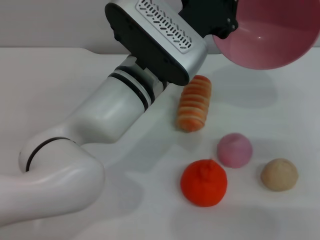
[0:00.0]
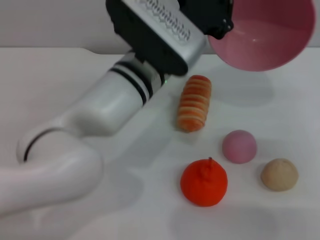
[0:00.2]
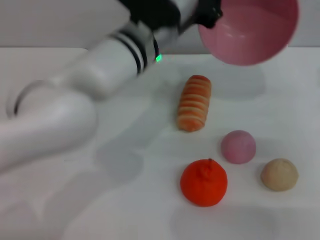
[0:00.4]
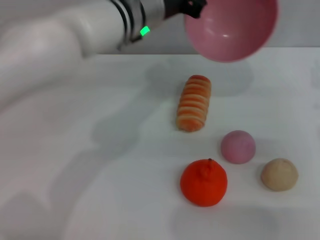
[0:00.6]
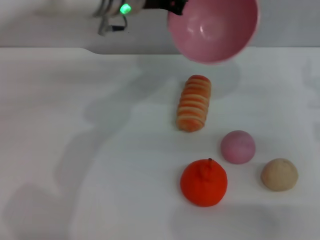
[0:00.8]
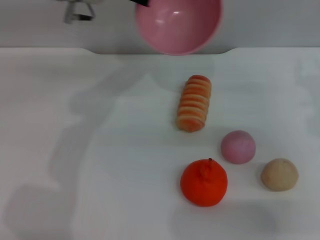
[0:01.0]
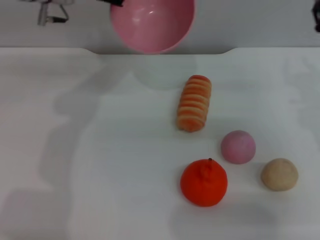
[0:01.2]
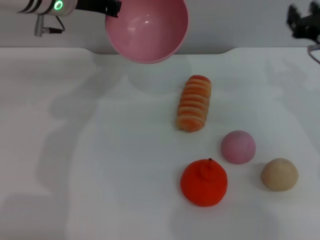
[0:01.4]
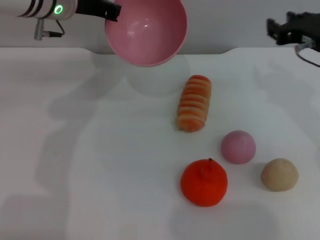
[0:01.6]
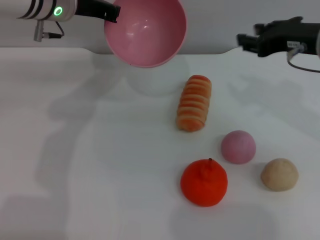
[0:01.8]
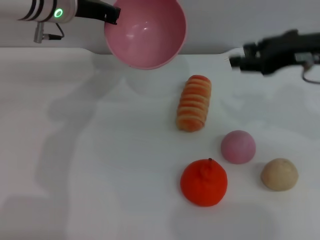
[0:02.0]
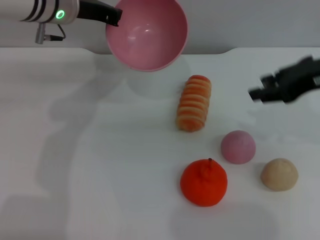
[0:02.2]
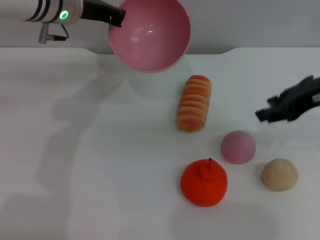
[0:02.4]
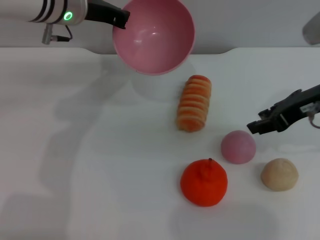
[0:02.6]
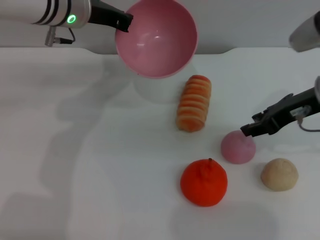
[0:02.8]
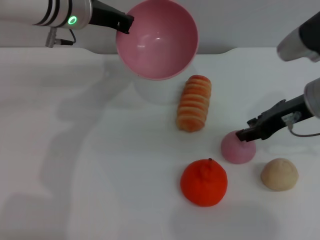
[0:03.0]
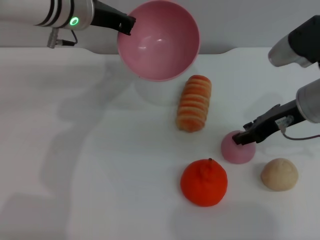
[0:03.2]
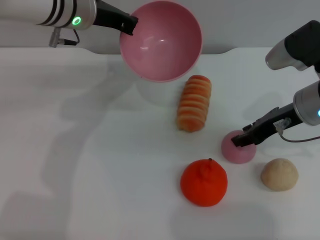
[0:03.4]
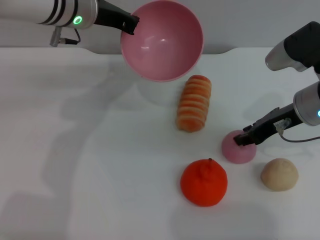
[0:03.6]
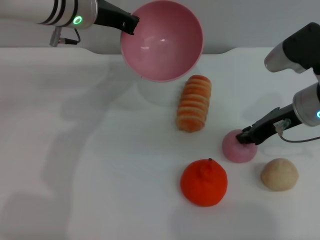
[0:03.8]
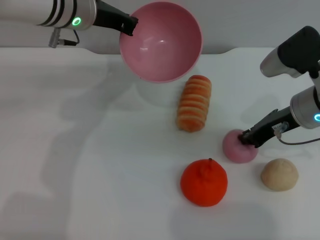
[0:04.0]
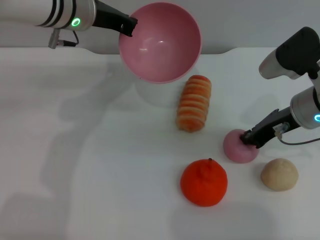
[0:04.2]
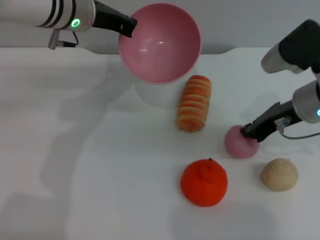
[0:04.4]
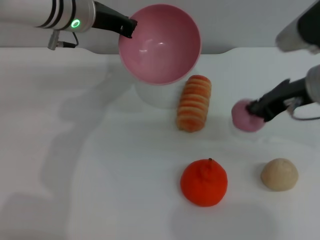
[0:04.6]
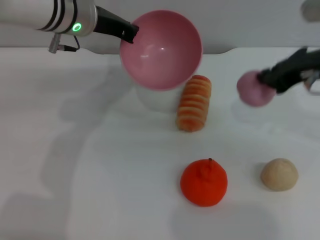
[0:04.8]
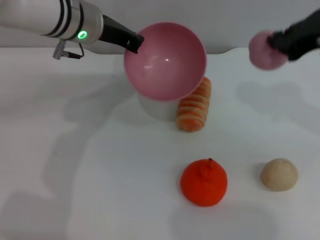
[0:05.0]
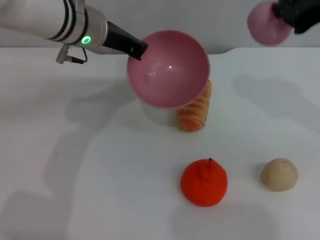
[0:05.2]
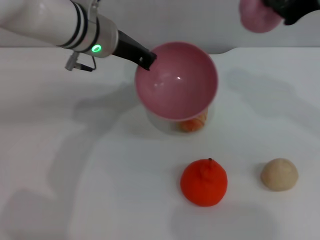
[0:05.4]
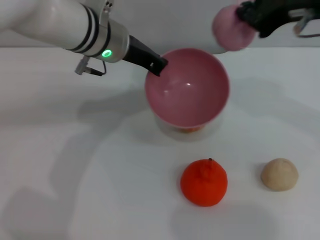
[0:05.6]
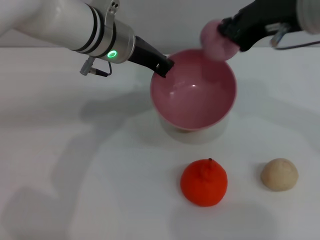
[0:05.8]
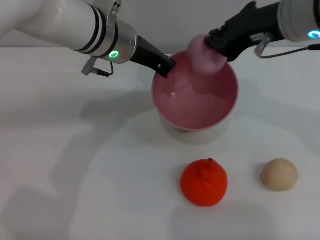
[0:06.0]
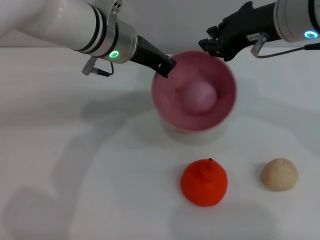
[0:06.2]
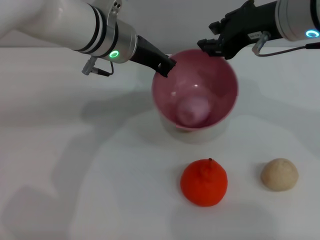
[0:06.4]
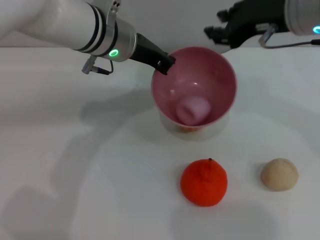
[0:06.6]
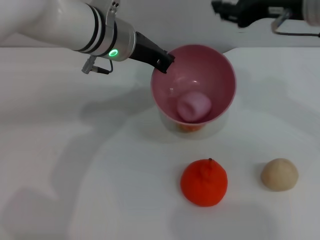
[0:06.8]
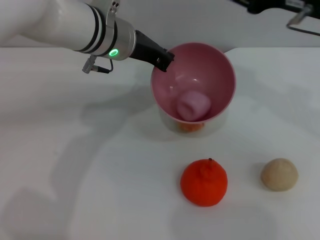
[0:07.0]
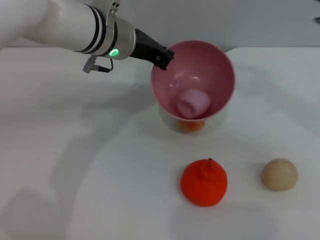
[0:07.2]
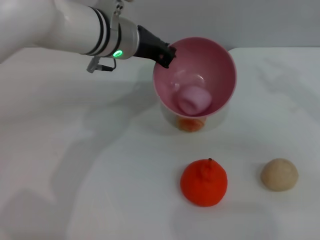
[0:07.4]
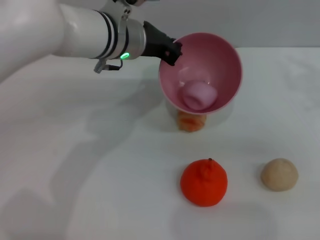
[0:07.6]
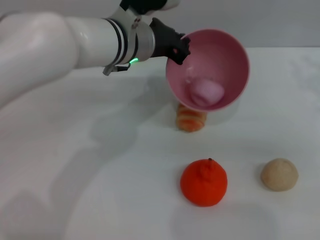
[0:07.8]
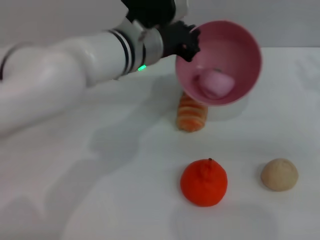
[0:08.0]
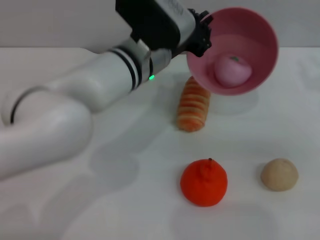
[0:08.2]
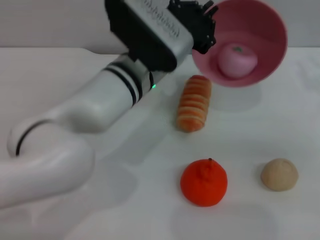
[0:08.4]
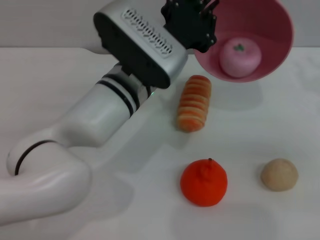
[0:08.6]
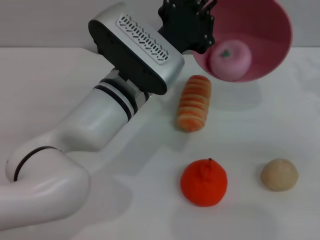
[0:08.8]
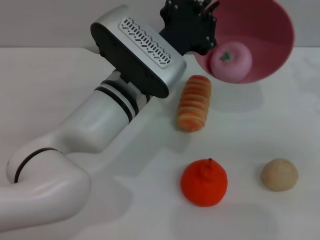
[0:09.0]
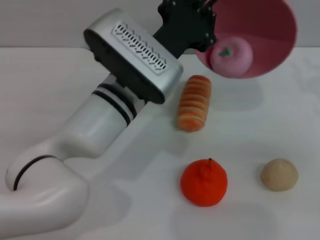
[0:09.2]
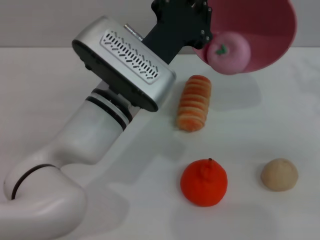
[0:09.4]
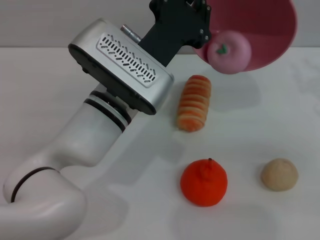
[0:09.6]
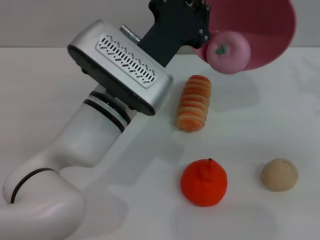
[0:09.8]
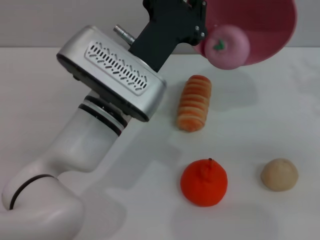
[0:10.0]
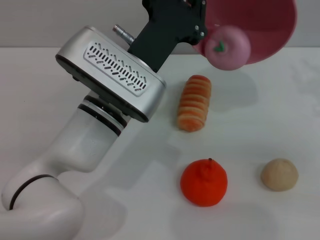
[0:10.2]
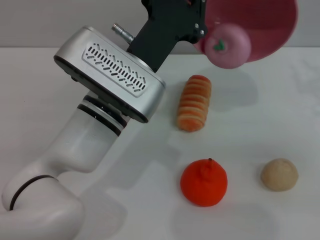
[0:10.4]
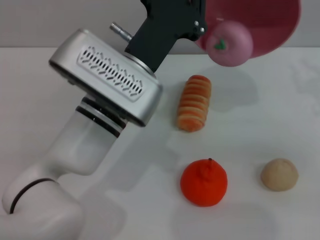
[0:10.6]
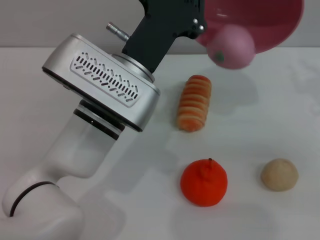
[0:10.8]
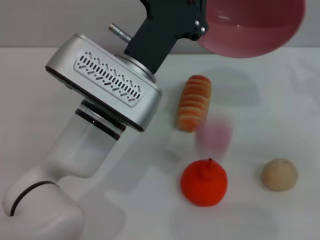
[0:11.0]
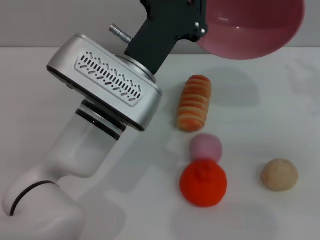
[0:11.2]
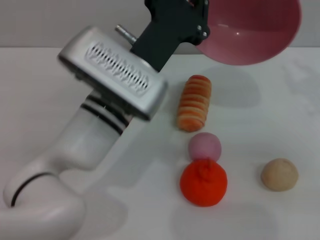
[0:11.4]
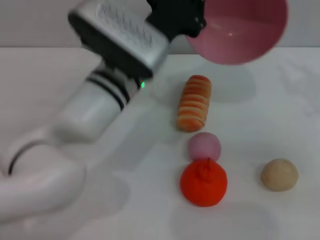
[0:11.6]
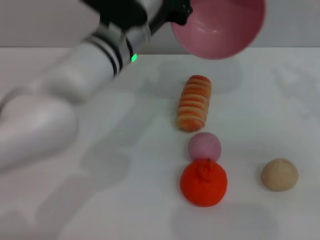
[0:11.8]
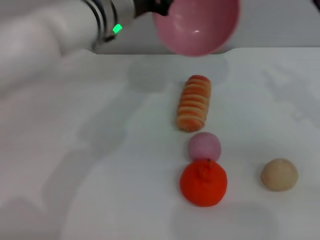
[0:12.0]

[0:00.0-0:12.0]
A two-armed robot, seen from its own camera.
Task of the whole recording: put the peach into the pink bowl and pour it out repeatedly.
Step, 0:00.2 to 0:04.8: Pick up the peach with the right gripper.
Step, 0:05.0 to 0:06.6: Place the peach into the bowl.
Step, 0:06.8 to 0:11.2: Pour the peach out of bowl.
0:00.0 to 0:01.6: The left gripper goes roughly 20 cm to the left, forward and upward. The right gripper heads to the left and forward, covering about 10 cm.
0:03.0 to 0:04.4: The right gripper closes its fingers.
0:04.4 to 0:06.0: The left gripper moves to the right, roughly 5 cm; the right gripper travels upward and to the left by about 15 cm.
0:06.0 to 0:07.6: The right gripper travels to the right and downward by about 20 cm, and opens up.
0:07.6 to 0:09.0: The left gripper goes about 10 cm backward.
0:10.4 to 0:12.0: The left gripper is displaced forward by some 10 cm.

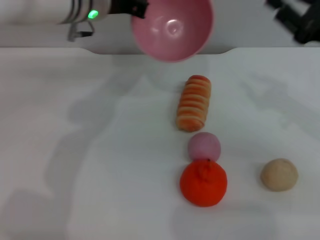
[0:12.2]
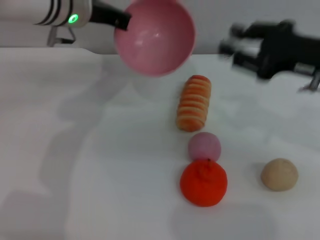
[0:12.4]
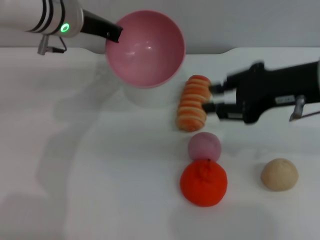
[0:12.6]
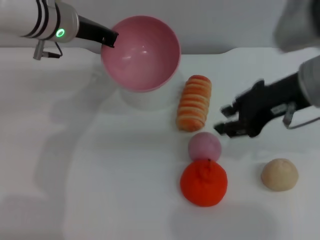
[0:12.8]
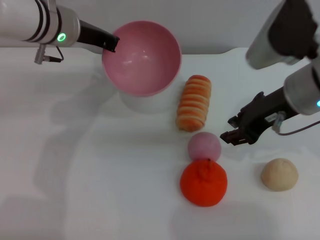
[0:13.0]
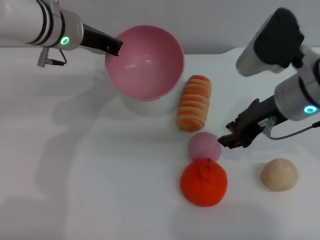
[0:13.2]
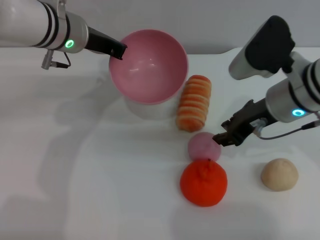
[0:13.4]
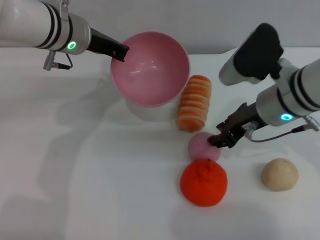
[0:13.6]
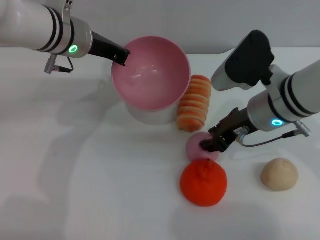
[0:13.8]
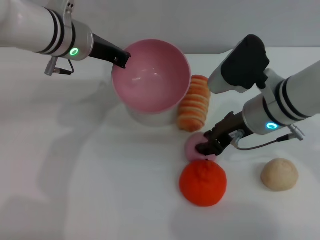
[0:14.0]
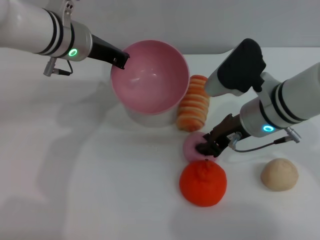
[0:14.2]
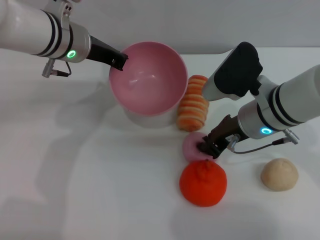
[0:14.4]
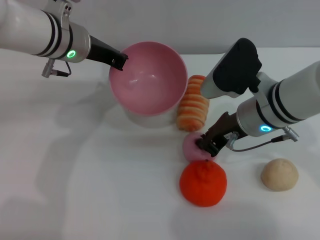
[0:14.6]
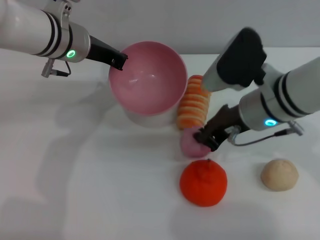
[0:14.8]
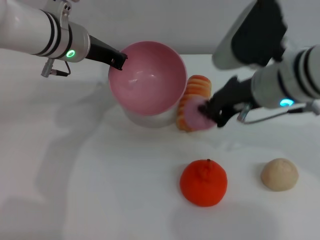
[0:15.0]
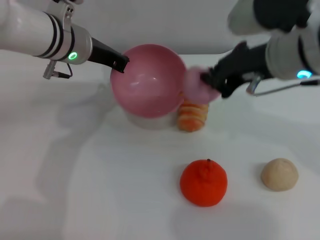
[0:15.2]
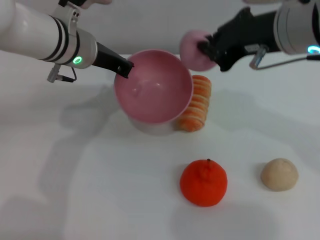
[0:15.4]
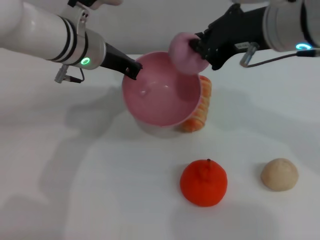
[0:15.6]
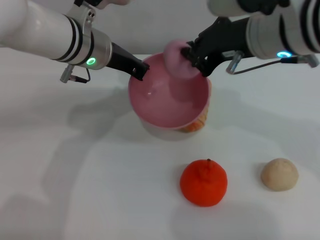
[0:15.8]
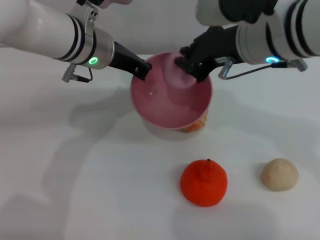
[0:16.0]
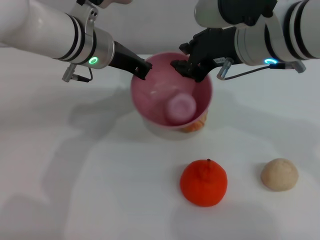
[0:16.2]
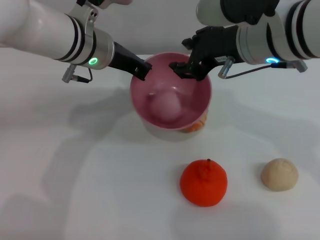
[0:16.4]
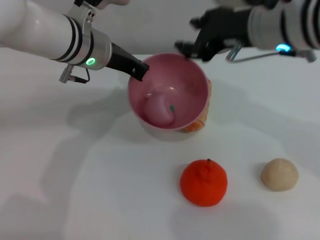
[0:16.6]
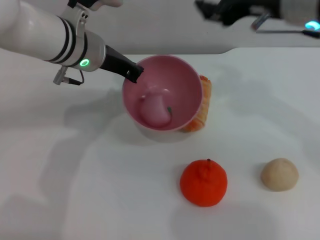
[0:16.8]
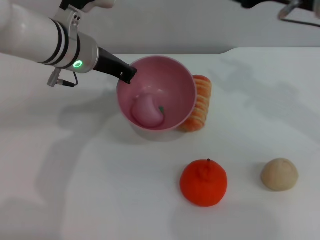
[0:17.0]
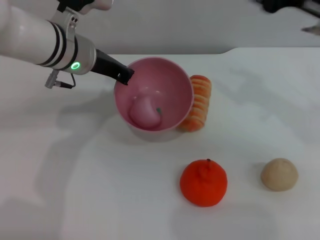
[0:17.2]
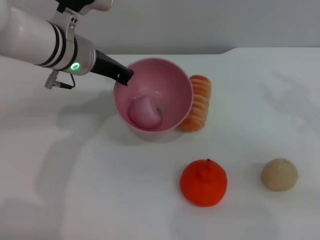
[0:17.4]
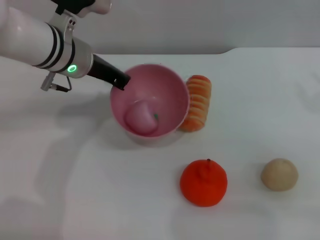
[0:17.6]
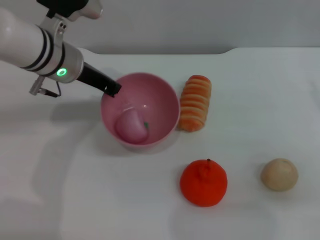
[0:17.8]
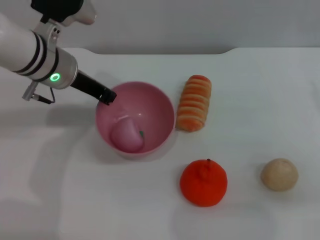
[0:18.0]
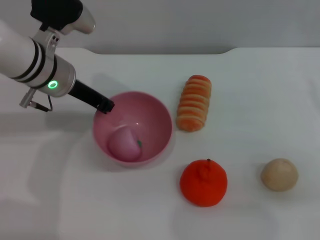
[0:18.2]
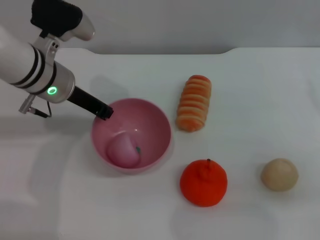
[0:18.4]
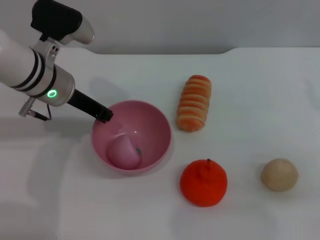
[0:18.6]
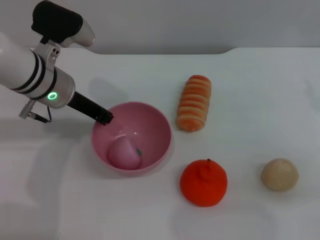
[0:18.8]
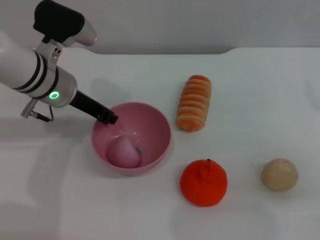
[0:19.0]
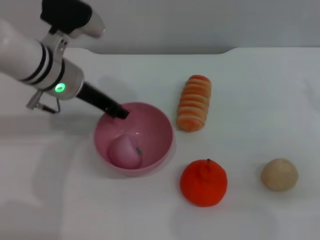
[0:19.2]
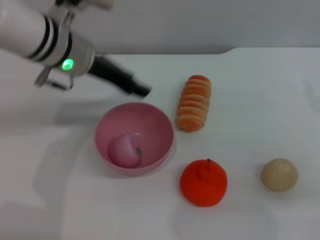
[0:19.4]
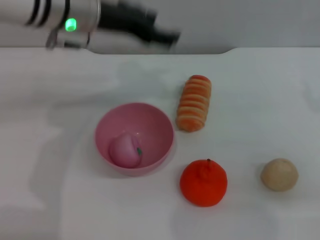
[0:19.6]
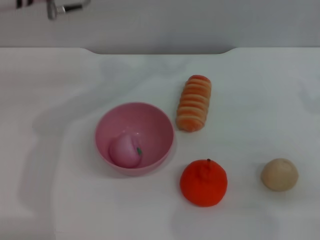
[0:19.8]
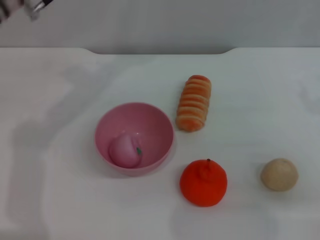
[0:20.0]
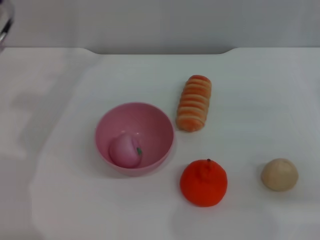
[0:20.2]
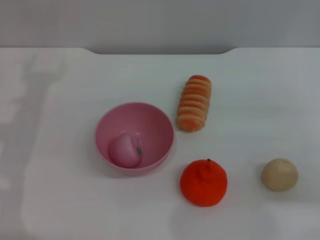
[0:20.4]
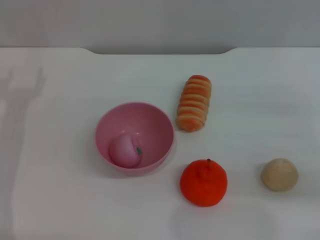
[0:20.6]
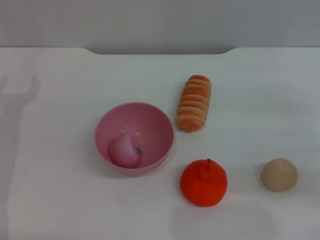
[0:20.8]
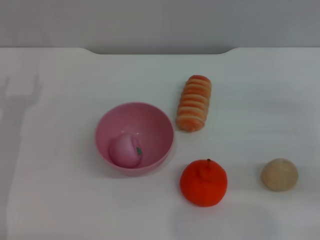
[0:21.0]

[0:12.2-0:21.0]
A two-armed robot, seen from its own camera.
Task of the whole recording: put the peach into the pink bowl and pour it out repeatedly.
Step, 0:12.2 to 0:14.8: Pick up the peach with the right gripper.
Step, 0:15.0 to 0:16.2: Place the peach into the bowl.
Step, 0:16.6 to 0:19.4: Place the bowl on the table.
0:12.2 to 0:13.6: The right gripper moves to the left, about 10 cm.
0:13.6 to 0:15.2: The right gripper heads upward, covering roughly 10 cm, and closes.
0:15.2 to 0:16.6: The right gripper opens its fingers.
0:16.6 to 0:18.0: The right gripper shifts some 25 cm to the right and downward. Meanwhile the left gripper moves some 5 cm.
0:18.0 to 0:19.6: The left gripper is displaced upward by approximately 5 cm, and opens up.
0:19.6 to 0:21.0: The left gripper shifts roughly 25 cm to the left, downward and backward.
